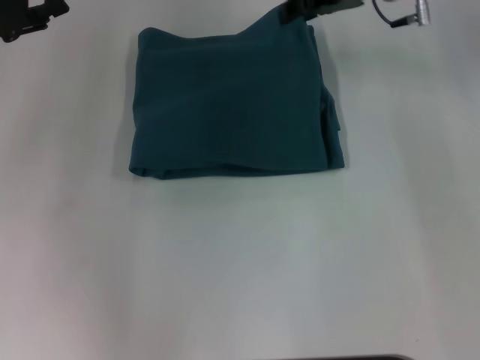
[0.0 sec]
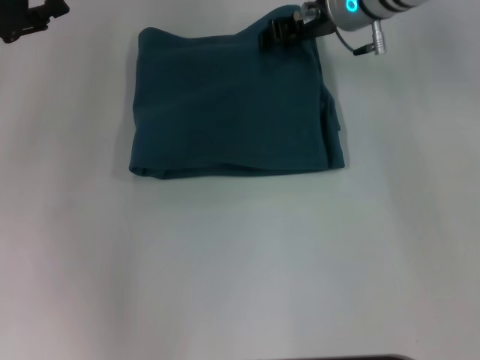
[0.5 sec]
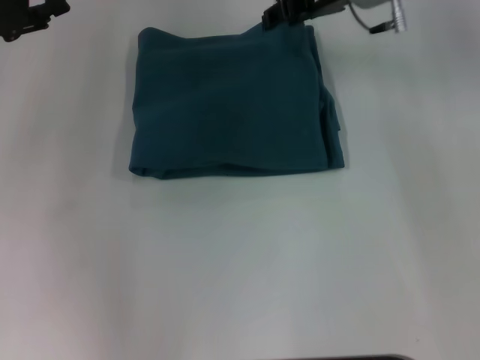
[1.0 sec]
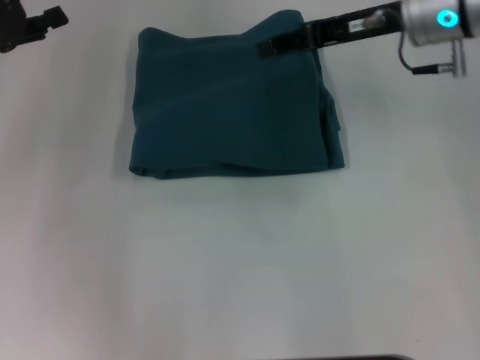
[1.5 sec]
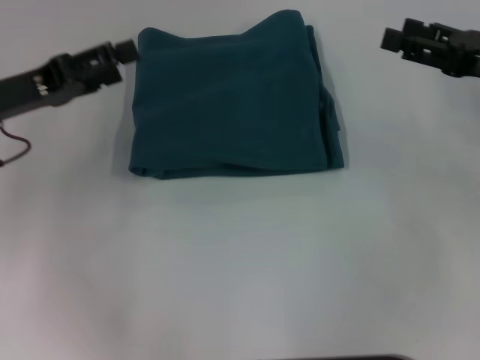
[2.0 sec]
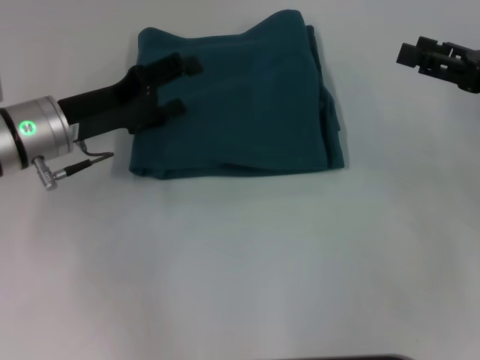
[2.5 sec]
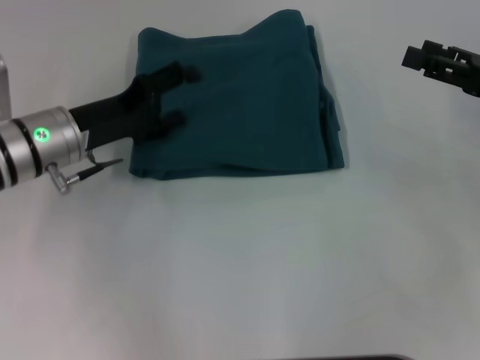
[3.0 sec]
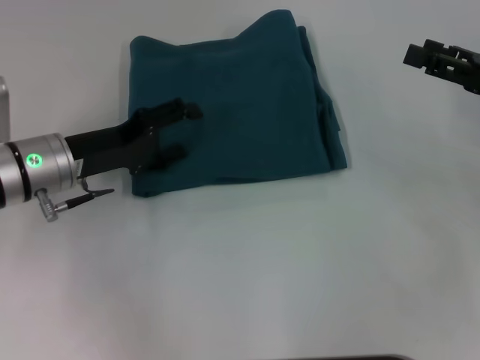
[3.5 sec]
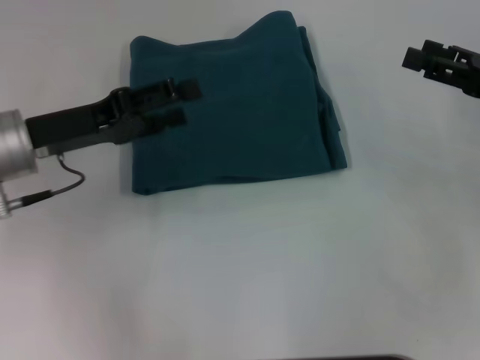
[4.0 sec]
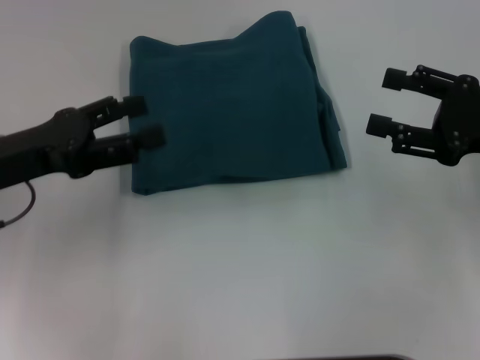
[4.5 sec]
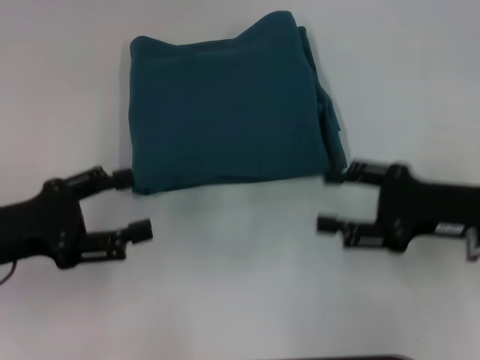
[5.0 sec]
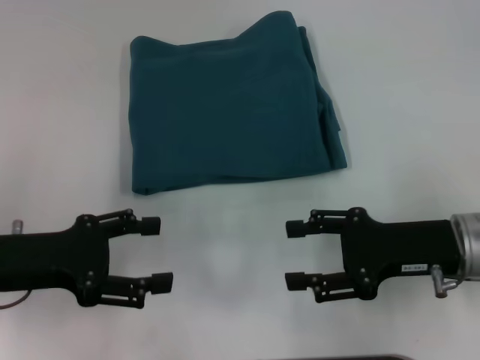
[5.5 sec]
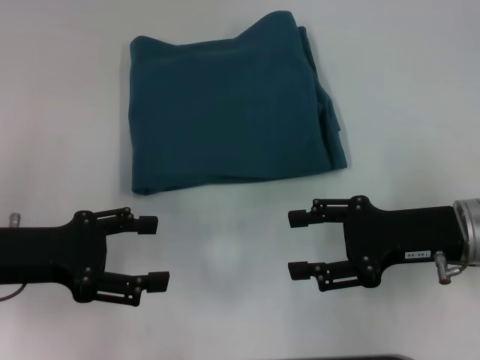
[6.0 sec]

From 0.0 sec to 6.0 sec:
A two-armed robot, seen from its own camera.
From 0.0 sec to 2.0 sec: The right gripper is displaced to the right and backward by some 20 cm. The left gripper changes place by about 5 cm.
From 4.0 sec to 6.0 sec: The right gripper is displaced to the left and downward by roughly 10 cm. Meanwhile the left gripper shifts about 5 cm backward.
